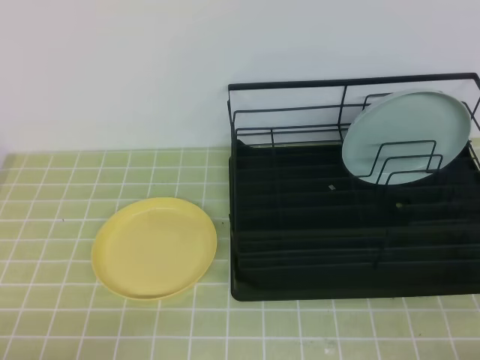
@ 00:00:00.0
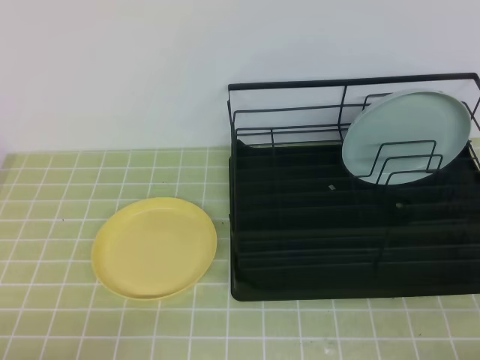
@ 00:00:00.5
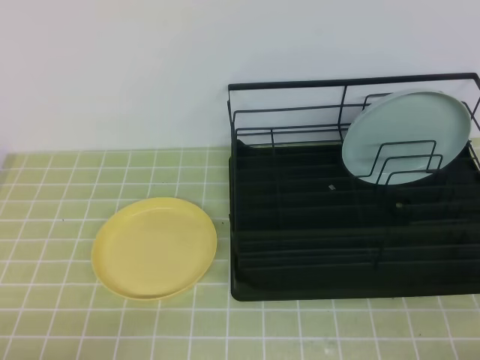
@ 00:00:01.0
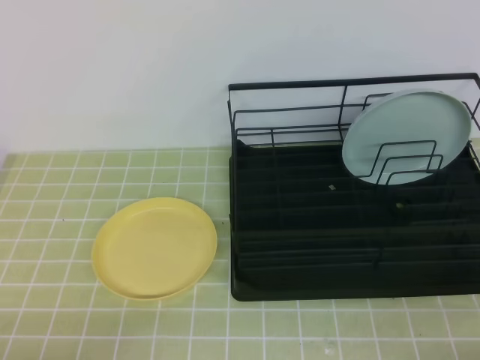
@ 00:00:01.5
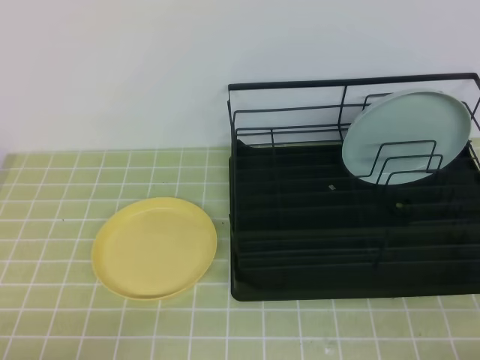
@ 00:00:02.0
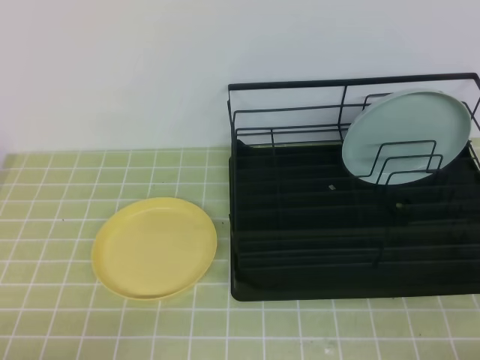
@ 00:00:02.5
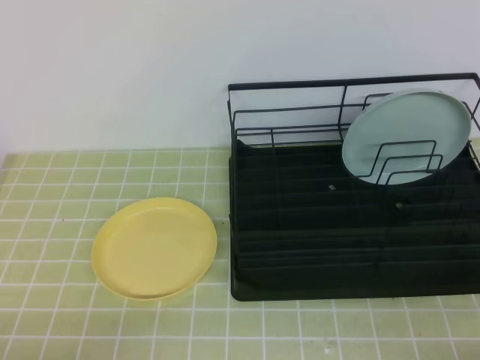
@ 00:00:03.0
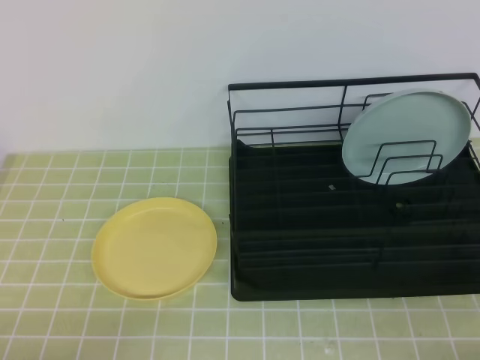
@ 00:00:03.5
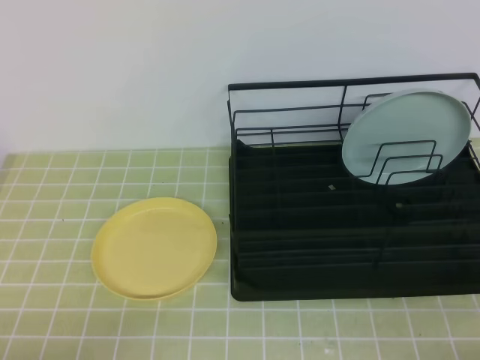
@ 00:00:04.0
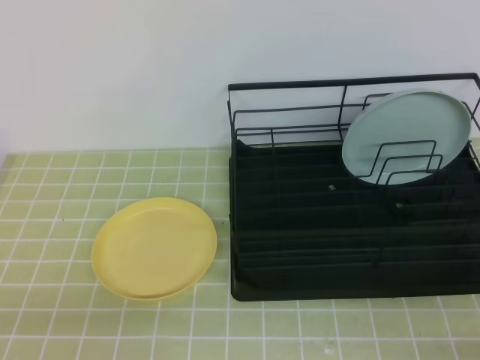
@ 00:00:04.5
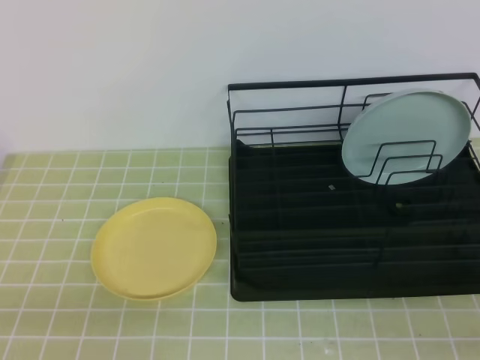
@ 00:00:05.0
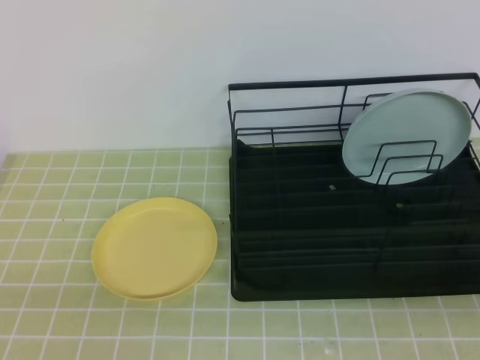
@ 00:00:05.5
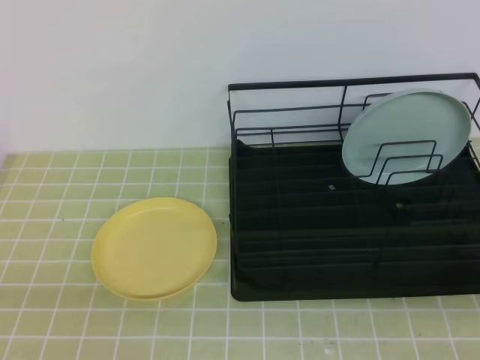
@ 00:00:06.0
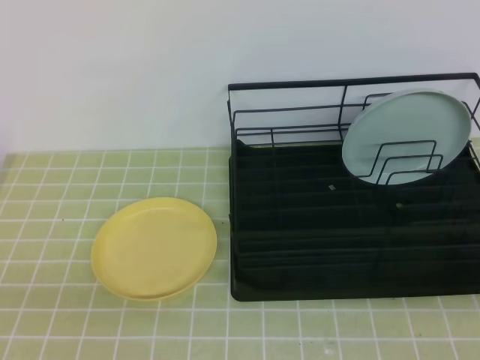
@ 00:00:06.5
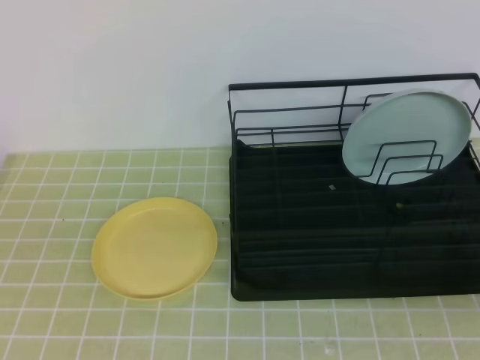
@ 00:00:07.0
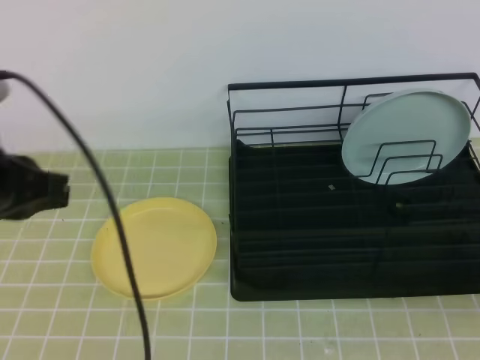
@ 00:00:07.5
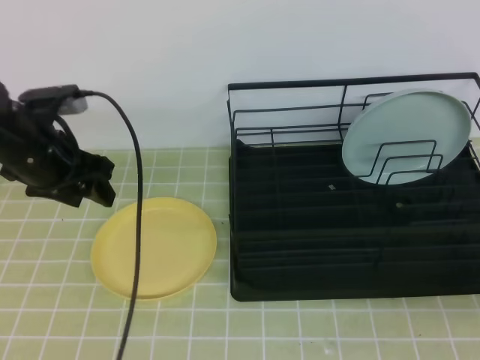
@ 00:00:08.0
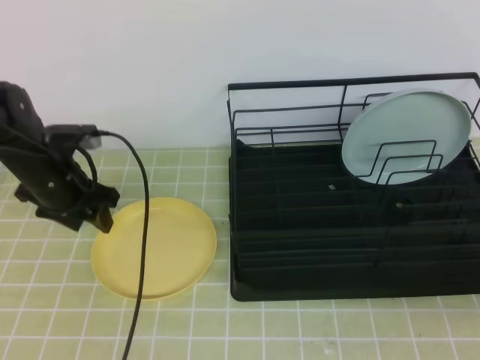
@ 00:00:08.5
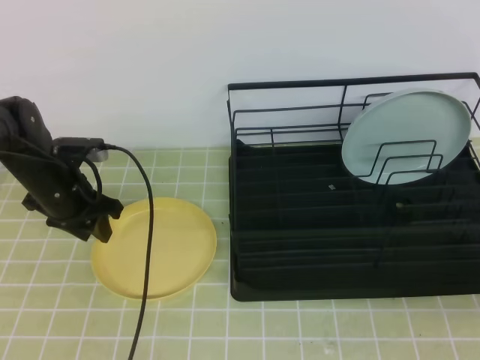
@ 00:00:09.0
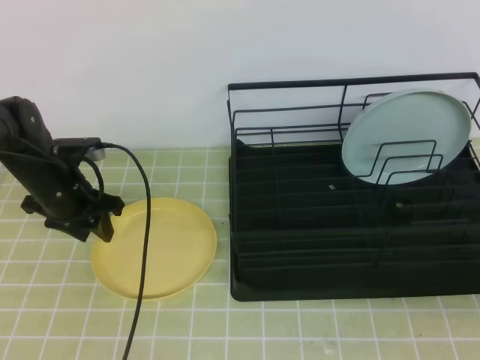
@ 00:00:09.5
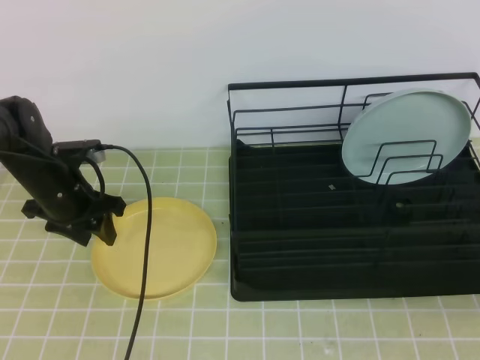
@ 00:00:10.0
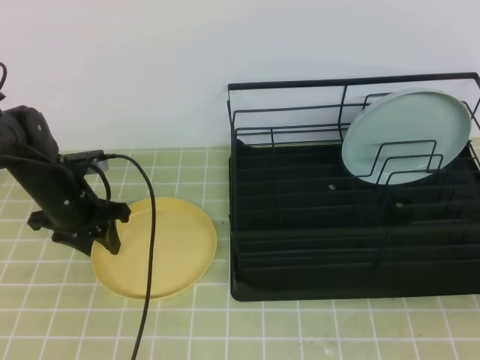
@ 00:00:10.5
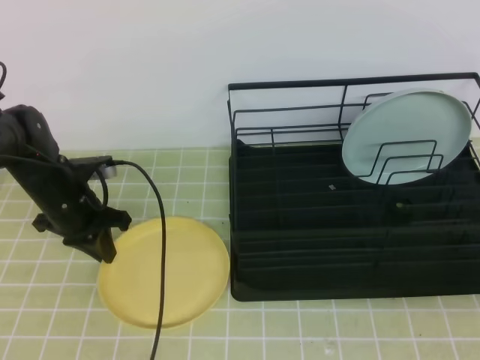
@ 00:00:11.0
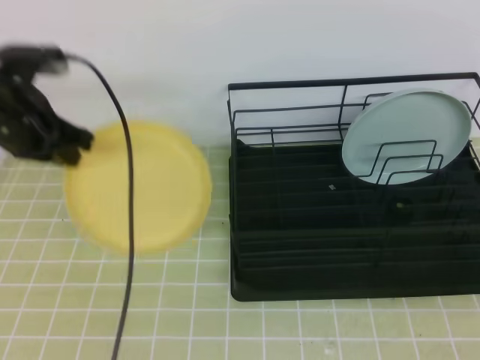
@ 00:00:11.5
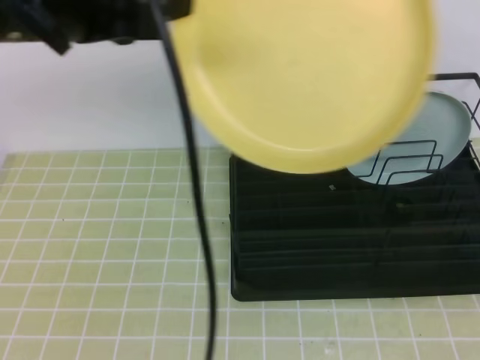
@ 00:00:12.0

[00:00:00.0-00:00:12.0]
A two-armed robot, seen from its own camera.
Step, 00:00:00.0 to 00:00:08.5: Left grab the yellow plate.
Step, 00:00:09.0 to 00:00:11.0: Right receive the plate.
00:00:00.0 to 00:00:04.0: The two grippers keep their place.
00:00:06.0 to 00:00:08.0: The left gripper goes roughly 30 cm forward, and opens its fingers.
00:00:08.0 to 00:00:10.0: The left gripper is displaced downward and forward by roughly 10 cm.
00:00:10.0 to 00:00:12.0: The left gripper goes approximately 35 cm upward and backward, and closes; the right gripper moves upward and to the left, roughly 15 cm.

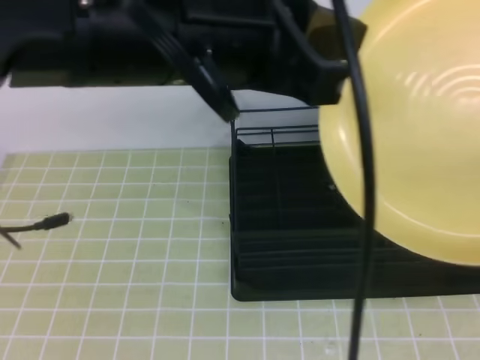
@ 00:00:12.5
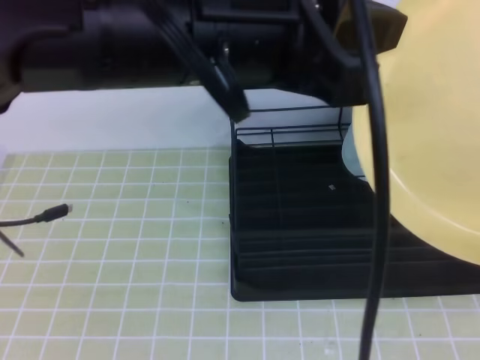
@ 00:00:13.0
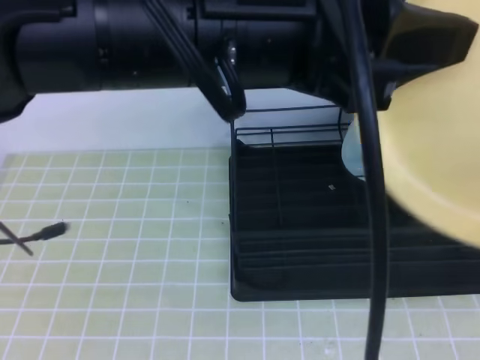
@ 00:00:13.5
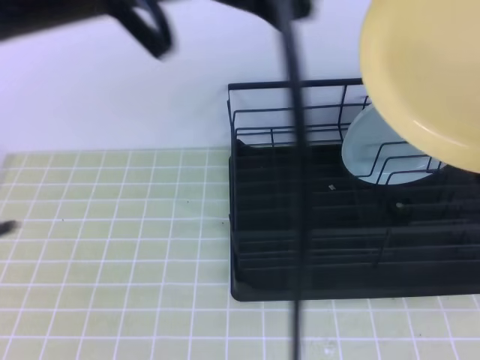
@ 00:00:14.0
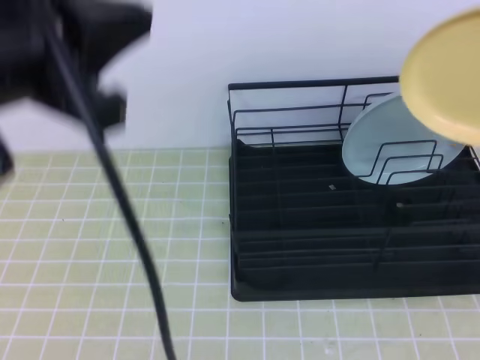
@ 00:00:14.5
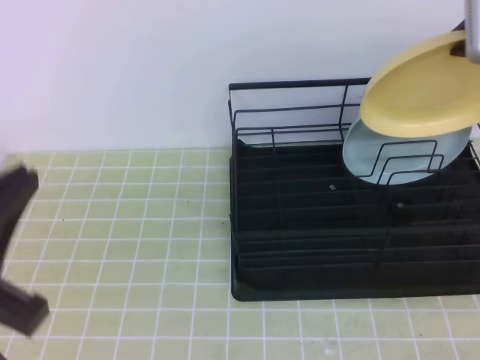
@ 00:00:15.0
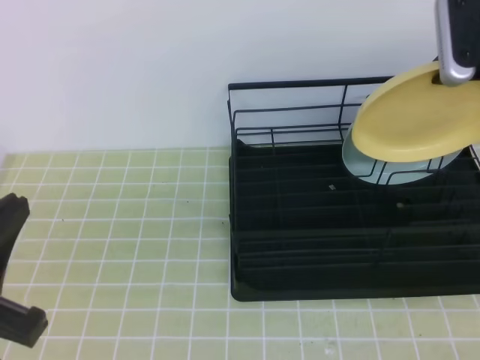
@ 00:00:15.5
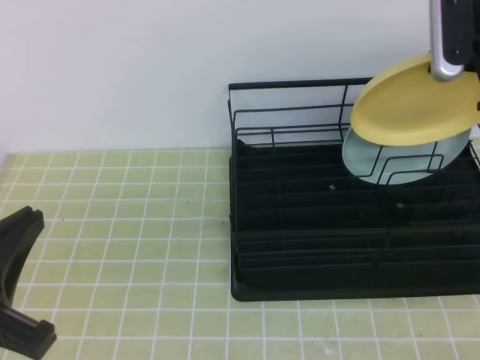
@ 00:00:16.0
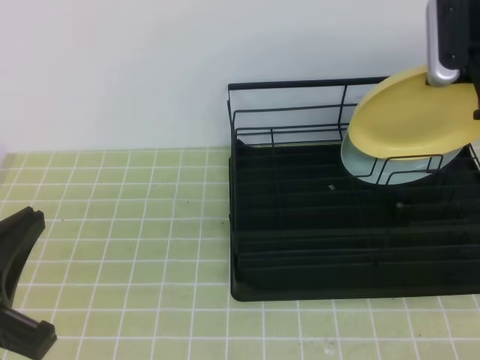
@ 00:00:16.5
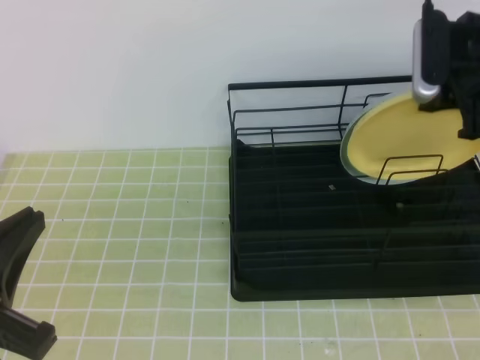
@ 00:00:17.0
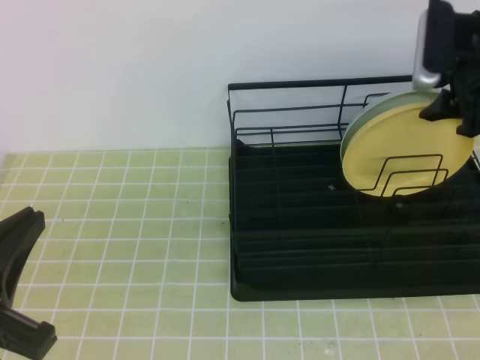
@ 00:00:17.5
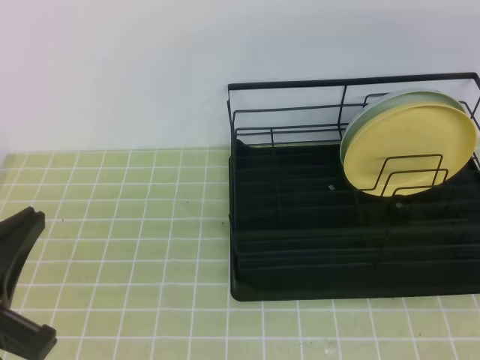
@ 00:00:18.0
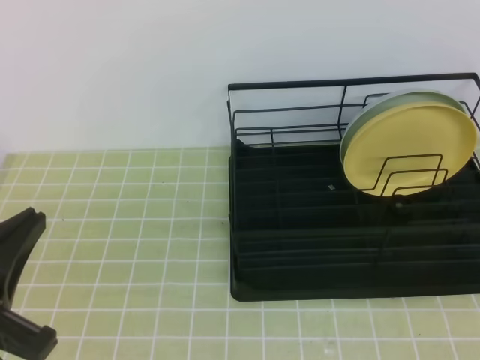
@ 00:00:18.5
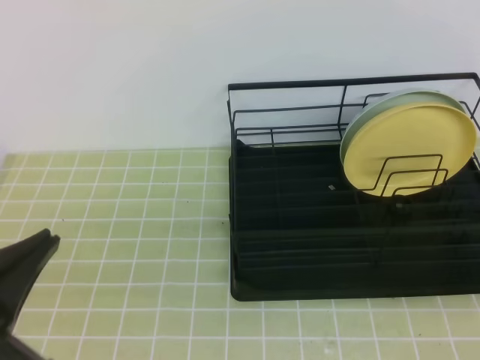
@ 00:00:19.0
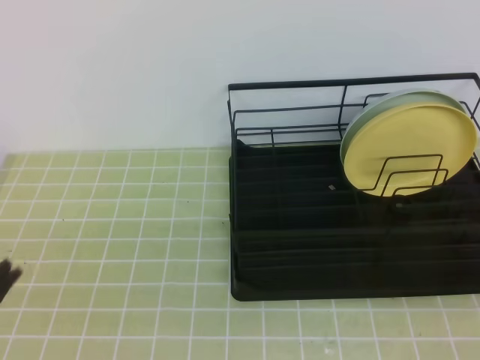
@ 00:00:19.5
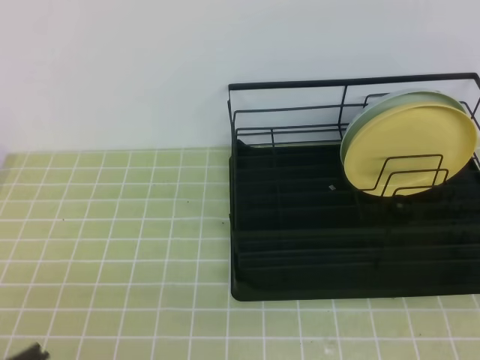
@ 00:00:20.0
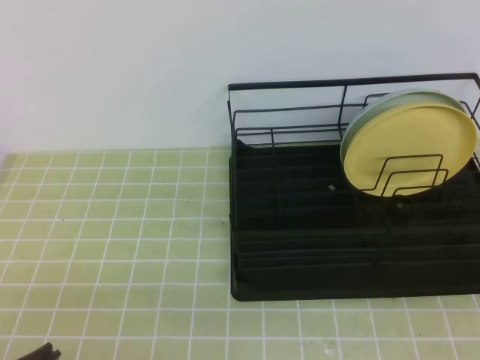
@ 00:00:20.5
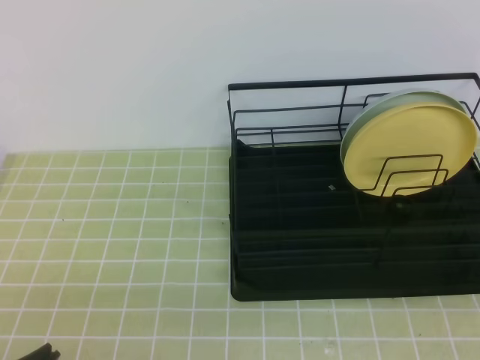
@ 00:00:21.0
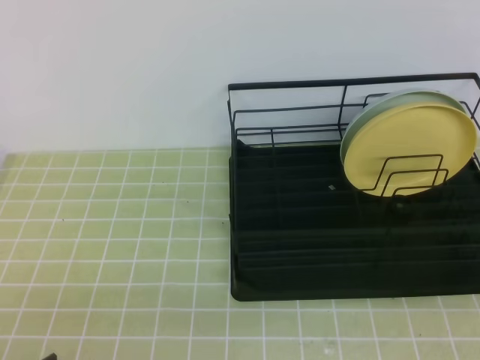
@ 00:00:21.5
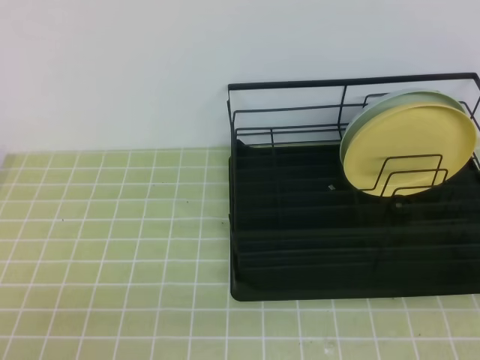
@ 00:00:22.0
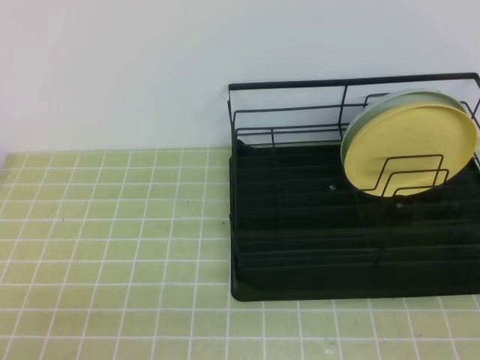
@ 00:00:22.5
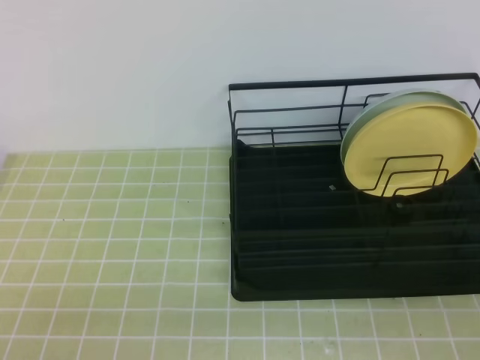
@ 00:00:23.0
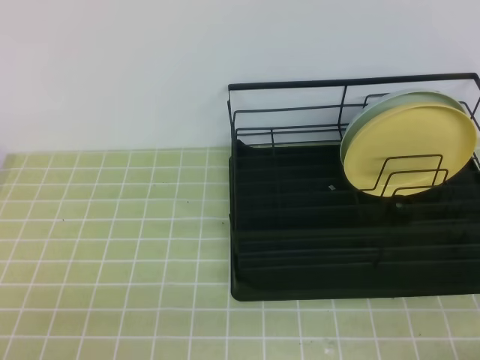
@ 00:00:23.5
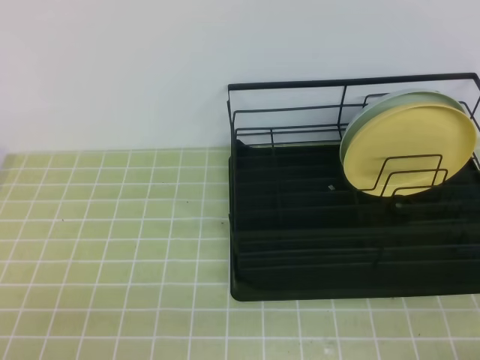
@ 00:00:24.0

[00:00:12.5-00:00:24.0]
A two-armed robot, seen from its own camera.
00:00:12.5 to 00:00:14.5: The right gripper shifts some 20 cm forward, and closes its fingers. The left gripper travels to the left by some 10 cm, and opens, then closes again.
00:00:14.5 to 00:00:16.5: The left gripper travels downward, backward and to the left by roughly 20 cm. The right gripper shifts approximately 15 cm forward and downward.
00:00:16.5 to 00:00:18.5: The right gripper shifts roughly 25 cm backward and upward, and opens and closes again.
00:00:18.5 to 00:00:20.0: The left gripper travels backward by approximately 5 cm.
